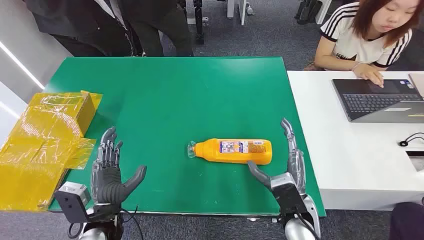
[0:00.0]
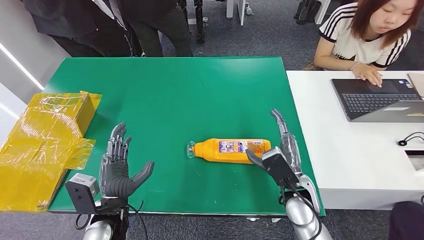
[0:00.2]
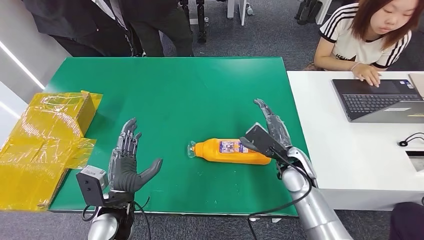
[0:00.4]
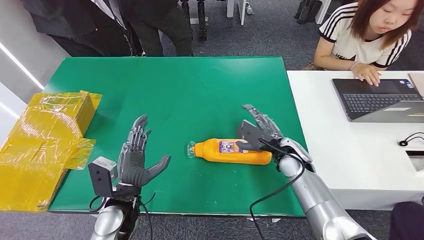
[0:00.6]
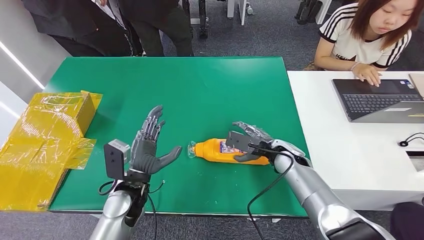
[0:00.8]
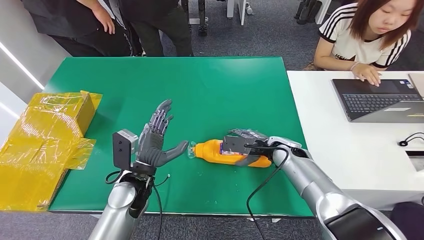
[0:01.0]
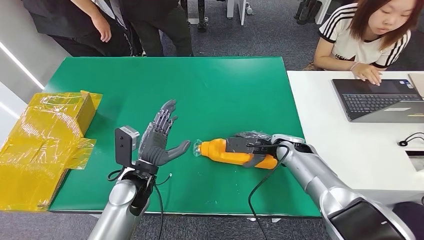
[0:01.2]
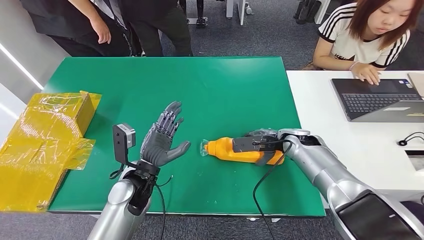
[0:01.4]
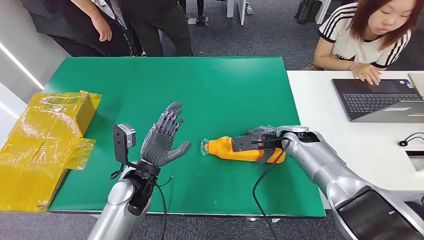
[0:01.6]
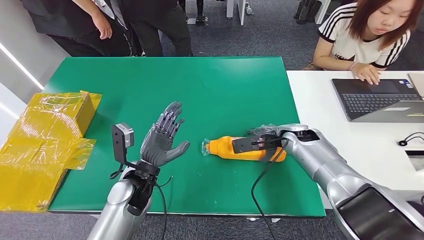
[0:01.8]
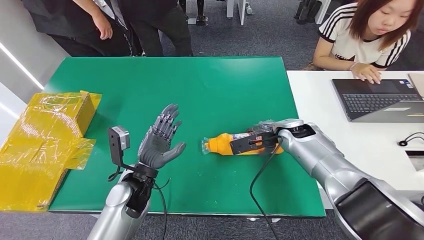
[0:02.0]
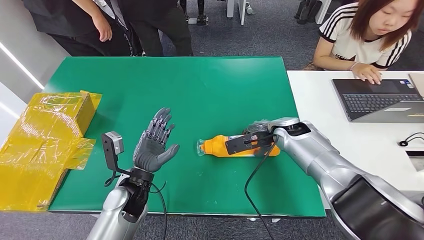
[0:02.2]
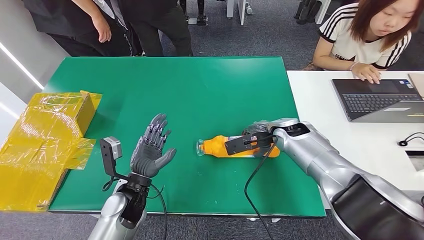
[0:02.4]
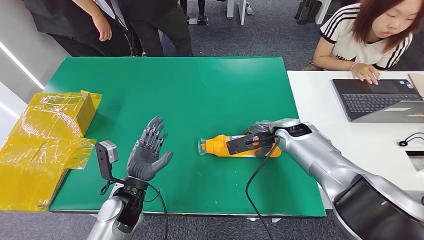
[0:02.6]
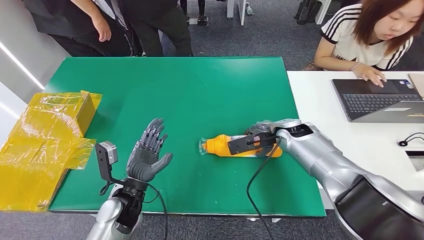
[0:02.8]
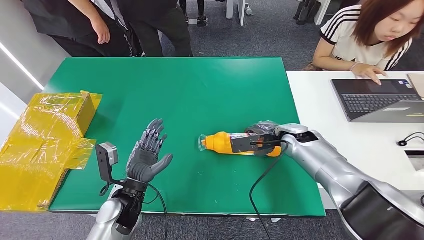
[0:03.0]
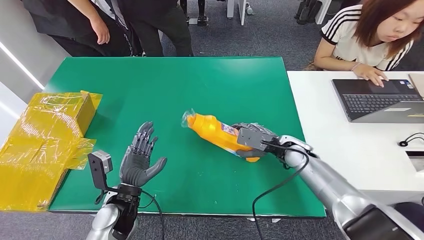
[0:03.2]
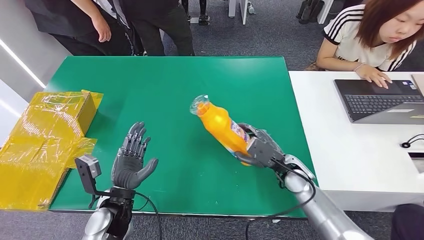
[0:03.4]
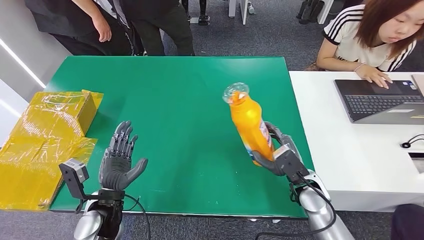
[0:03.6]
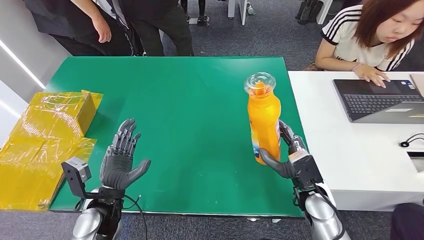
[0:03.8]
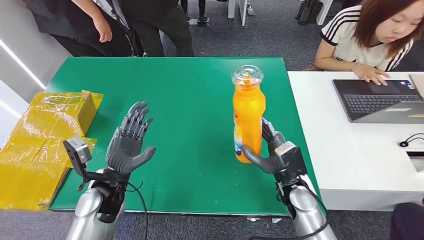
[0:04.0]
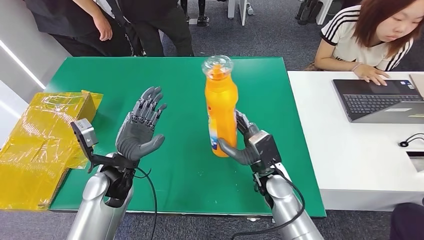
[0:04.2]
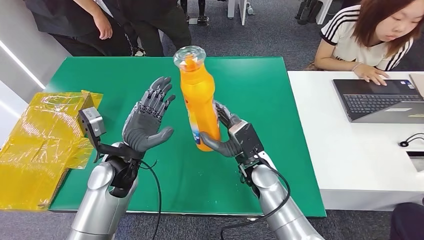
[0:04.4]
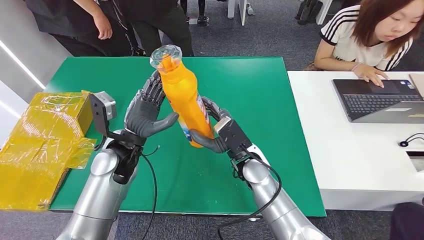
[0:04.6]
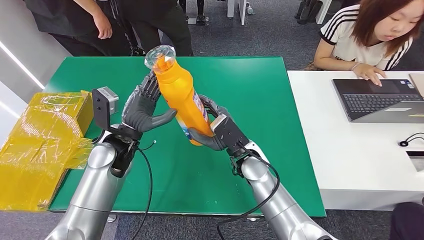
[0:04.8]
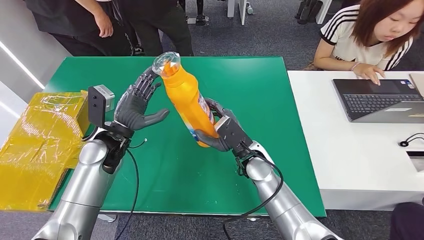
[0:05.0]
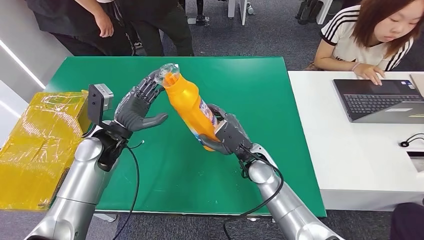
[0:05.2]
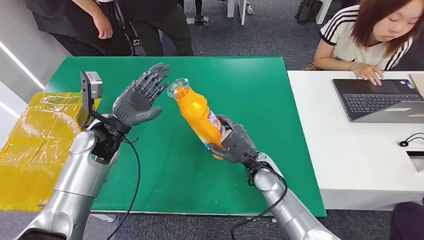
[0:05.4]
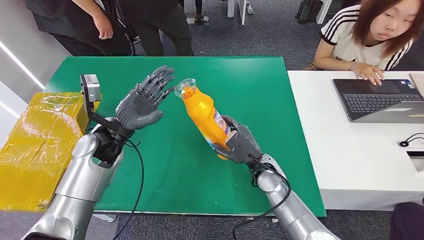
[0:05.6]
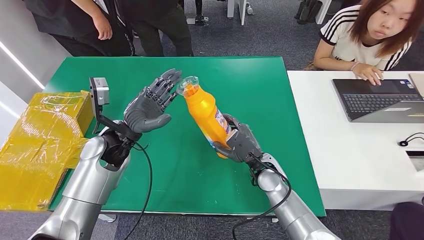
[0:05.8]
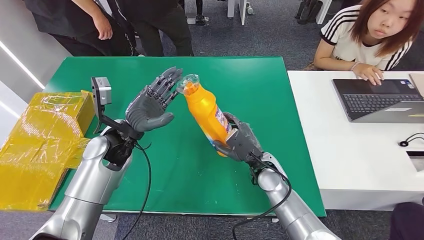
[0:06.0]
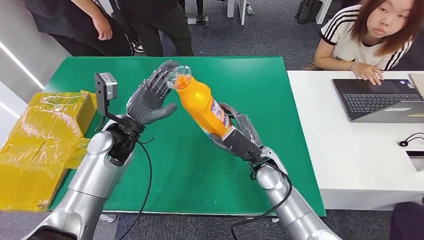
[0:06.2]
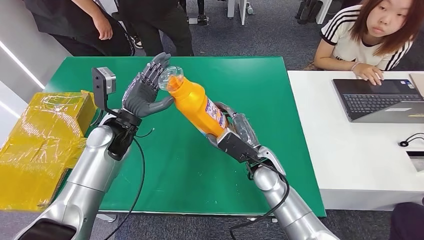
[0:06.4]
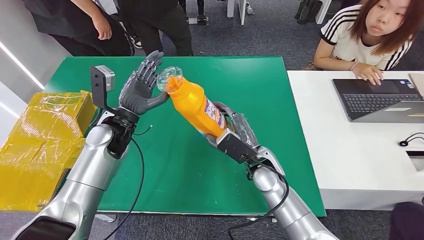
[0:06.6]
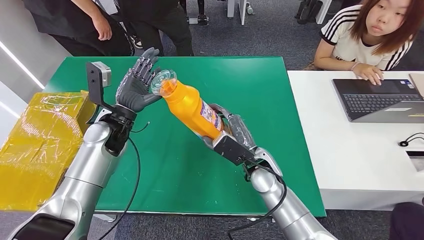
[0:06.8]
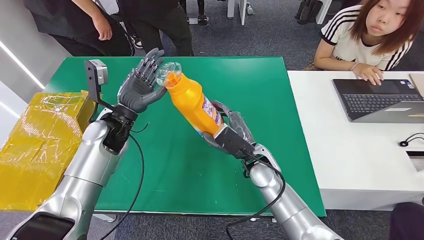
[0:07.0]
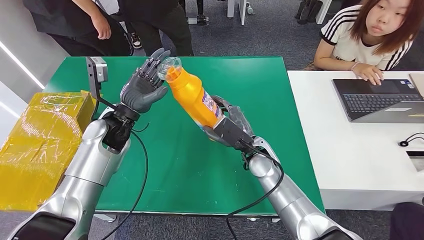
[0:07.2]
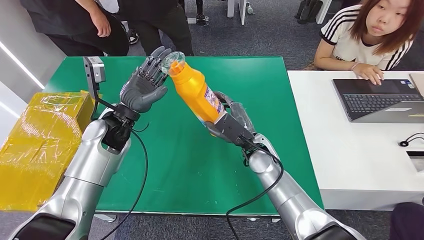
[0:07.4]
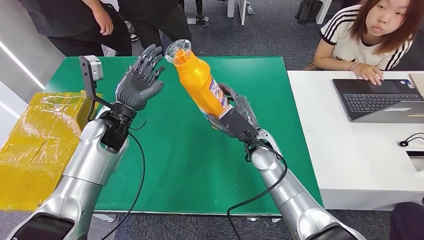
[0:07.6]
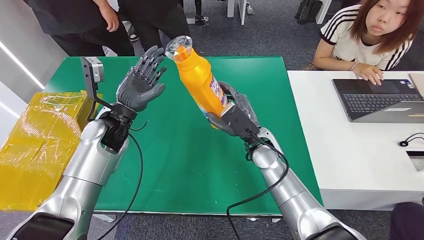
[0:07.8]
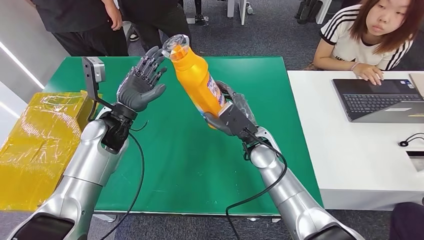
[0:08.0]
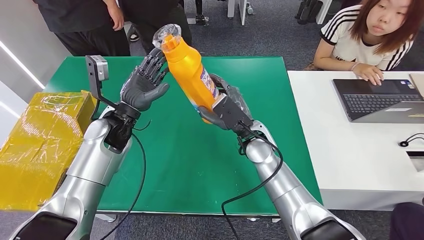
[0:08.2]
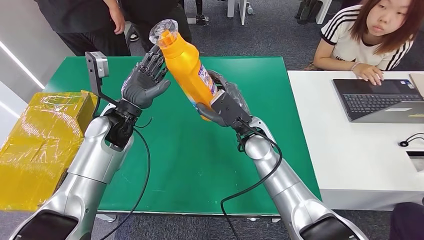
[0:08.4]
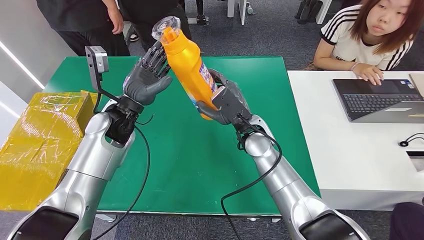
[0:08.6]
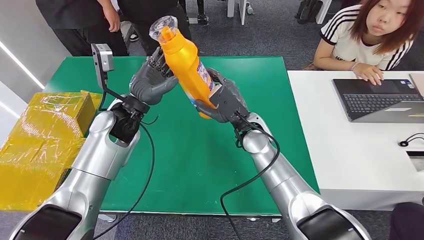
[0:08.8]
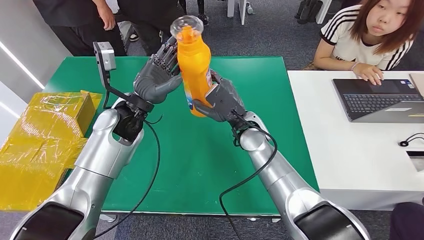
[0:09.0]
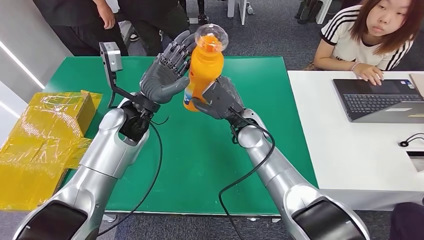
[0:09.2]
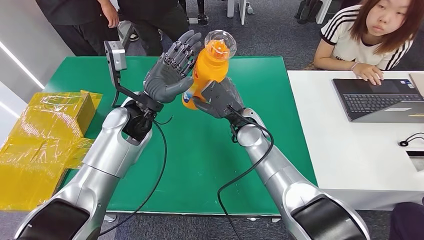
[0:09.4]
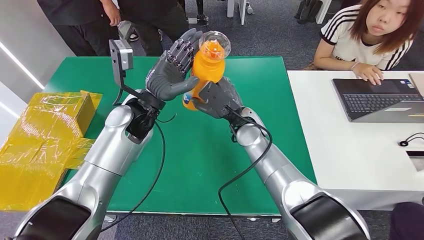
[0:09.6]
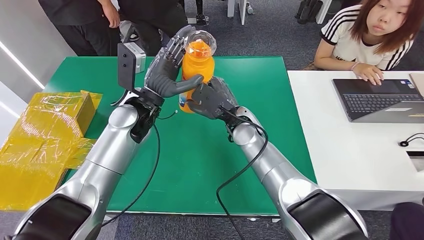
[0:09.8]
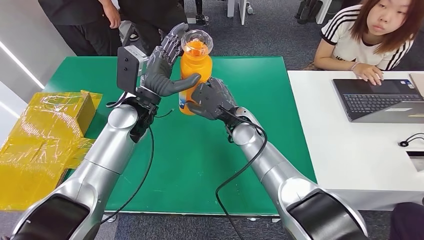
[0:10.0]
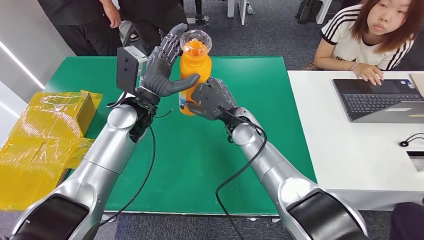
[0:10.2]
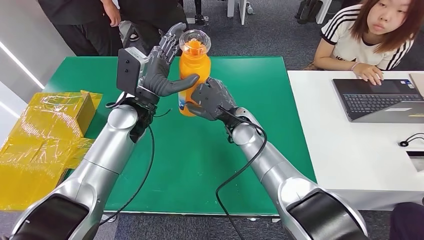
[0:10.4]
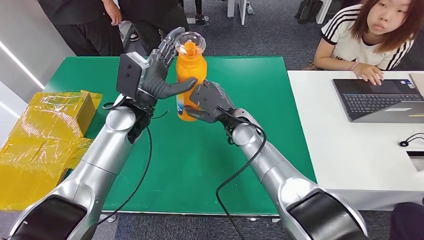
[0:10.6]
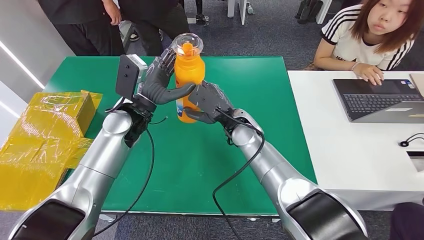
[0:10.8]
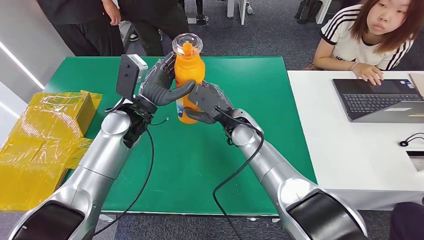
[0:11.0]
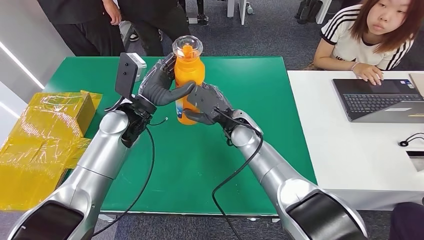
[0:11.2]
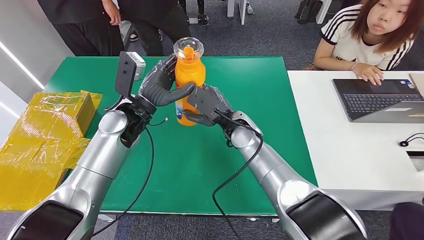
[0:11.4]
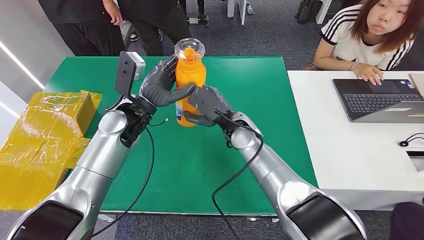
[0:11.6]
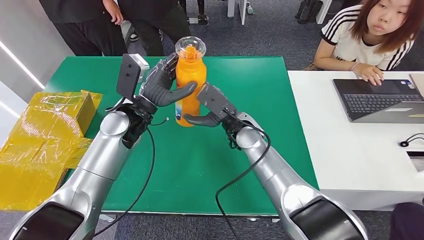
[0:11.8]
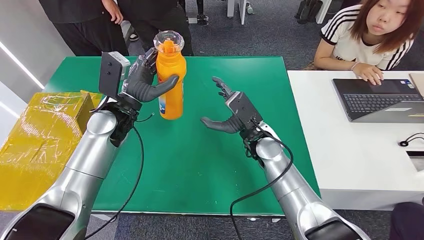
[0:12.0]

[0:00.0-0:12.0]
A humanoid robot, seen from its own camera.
Step, 0:00.0 to 0:04.0: Pick up the bottle from the table.
0:01.6 to 0:03.0: The left hand changes place by some 5 cm.
0:04.4 to 0:06.0: The left hand is displaced forward by approximately 5 cm. The right hand moves about 5 cm.
0:07.6 to 0:09.0: The right hand shifts by some 5 cm. Meanwhile the left hand changes place by about 5 cm.

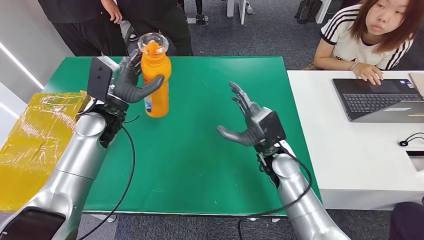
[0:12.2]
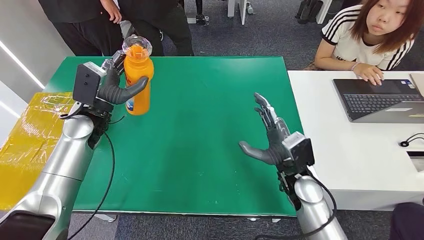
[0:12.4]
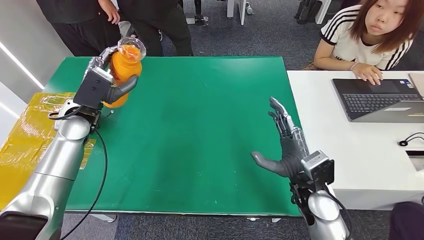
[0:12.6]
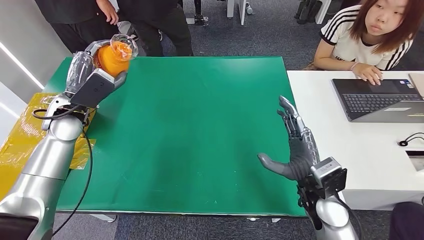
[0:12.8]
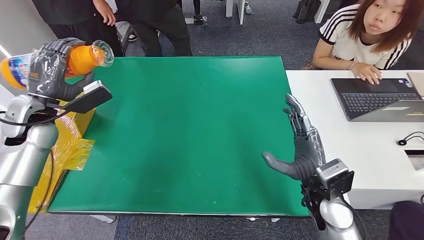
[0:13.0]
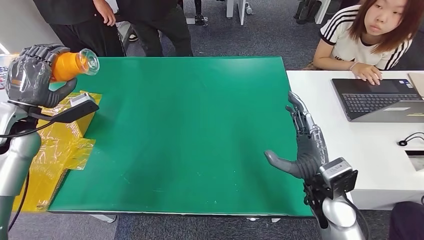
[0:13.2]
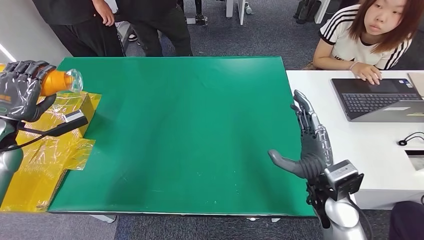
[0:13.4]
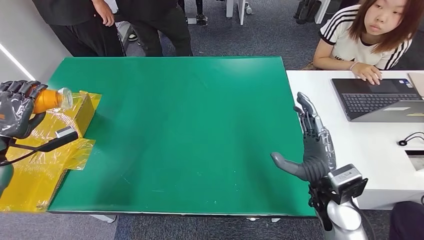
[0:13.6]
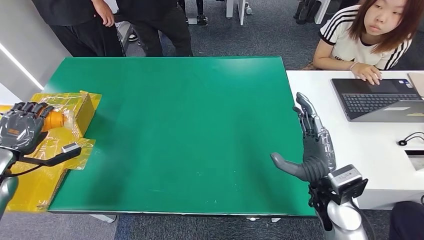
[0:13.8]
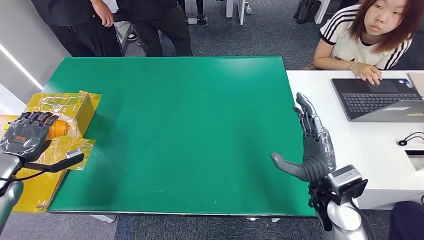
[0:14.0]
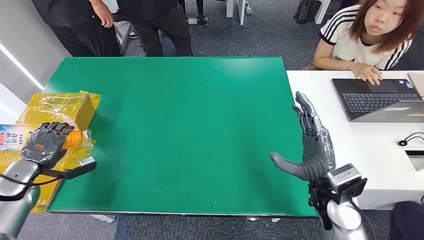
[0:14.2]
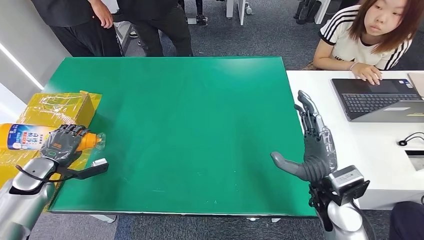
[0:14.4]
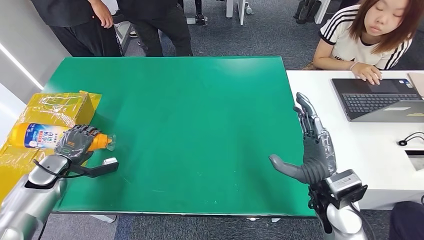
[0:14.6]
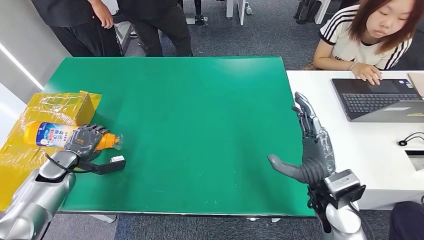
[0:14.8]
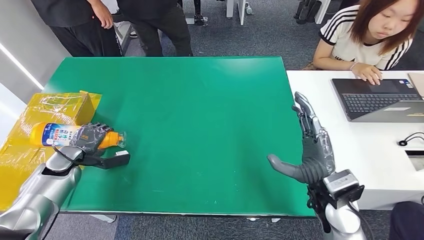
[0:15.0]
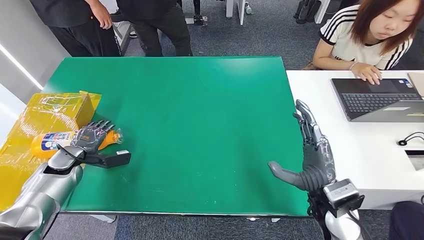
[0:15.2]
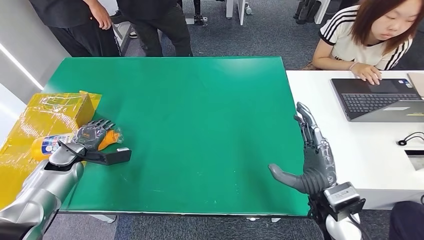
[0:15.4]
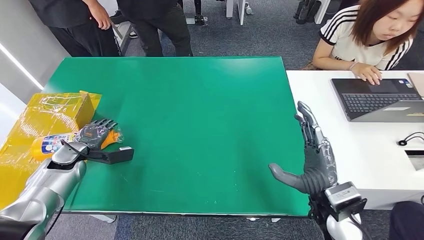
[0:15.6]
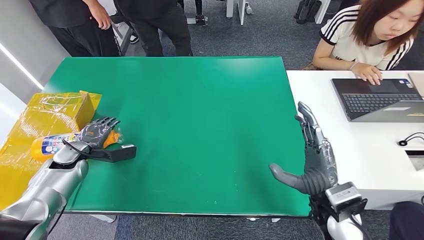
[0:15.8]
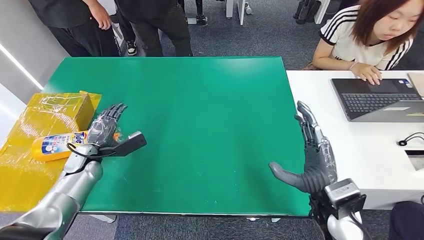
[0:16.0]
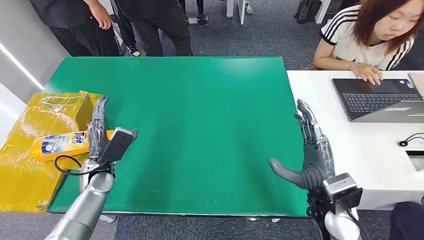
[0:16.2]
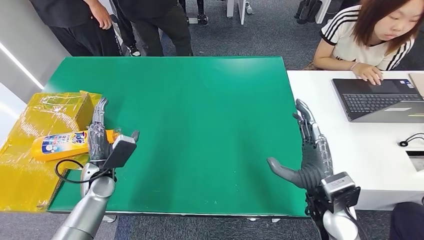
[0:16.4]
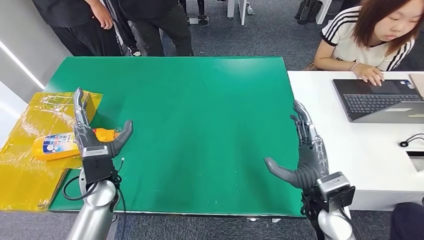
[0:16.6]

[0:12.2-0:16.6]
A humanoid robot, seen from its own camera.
Step, 0:12.2 to 0:16.6: Turn the bottle to the front side.
0:13.6 to 0:15.2: The left hand travels downward and to the right by roughly 15 cm.
0:15.2 to 0:16.6: The left hand shifts about 20 cm to the right and backward.
